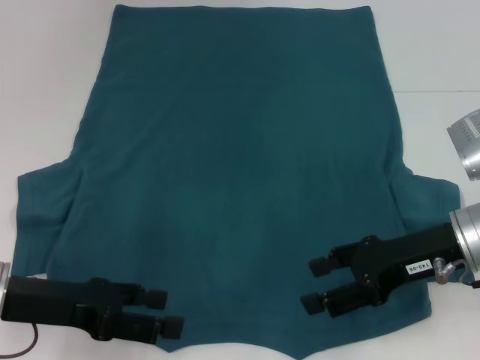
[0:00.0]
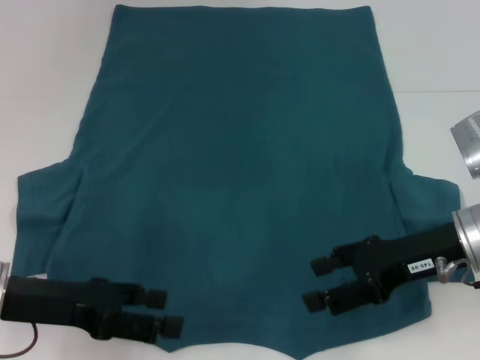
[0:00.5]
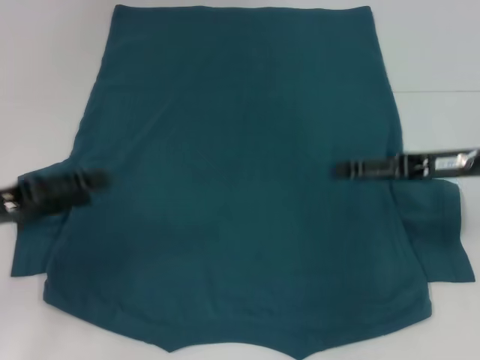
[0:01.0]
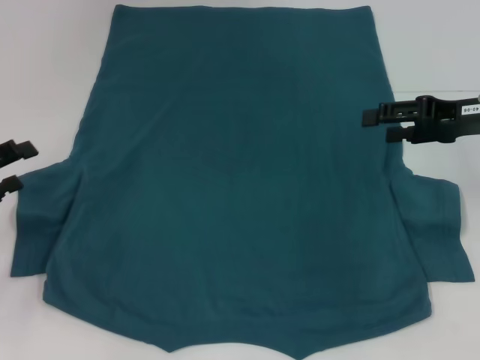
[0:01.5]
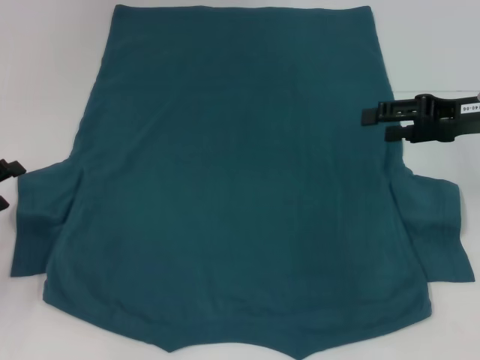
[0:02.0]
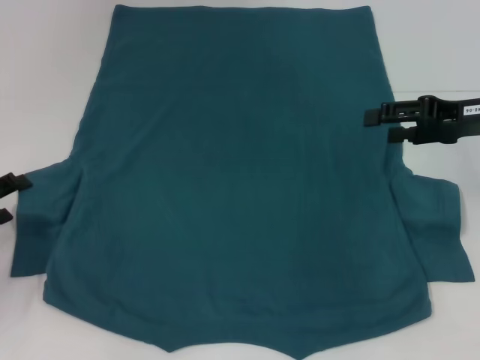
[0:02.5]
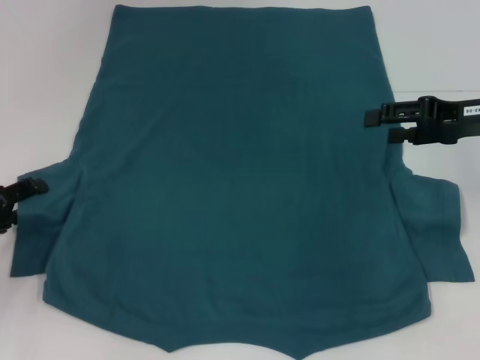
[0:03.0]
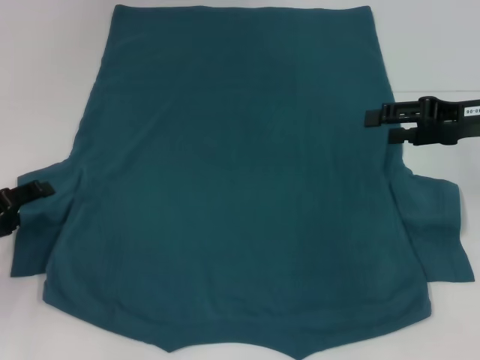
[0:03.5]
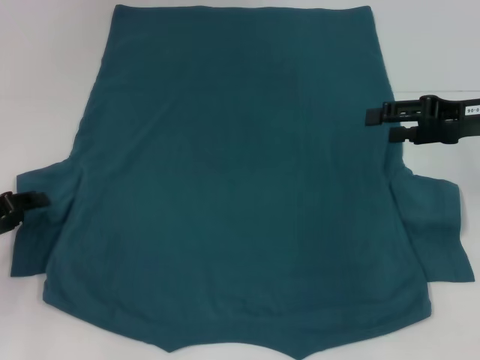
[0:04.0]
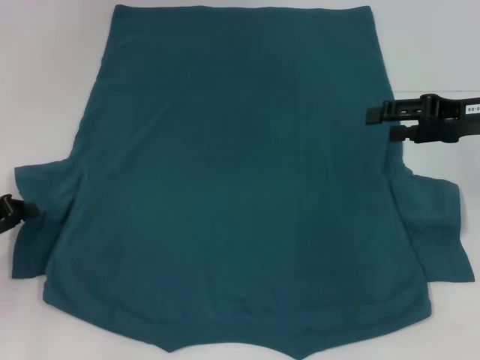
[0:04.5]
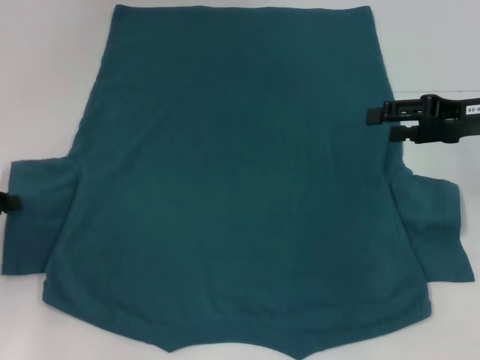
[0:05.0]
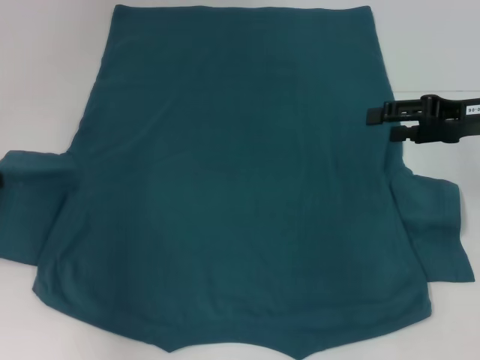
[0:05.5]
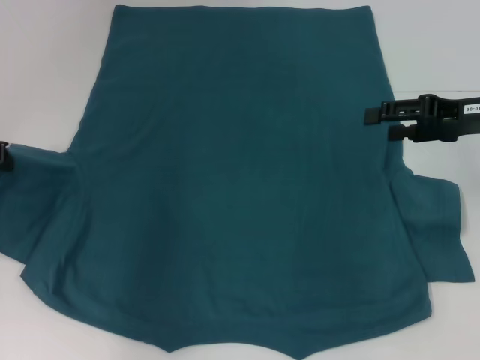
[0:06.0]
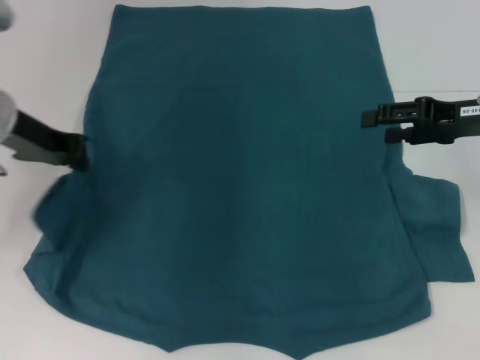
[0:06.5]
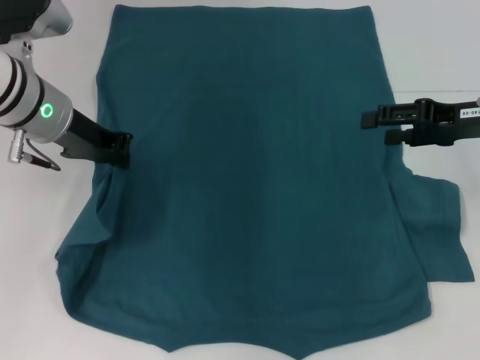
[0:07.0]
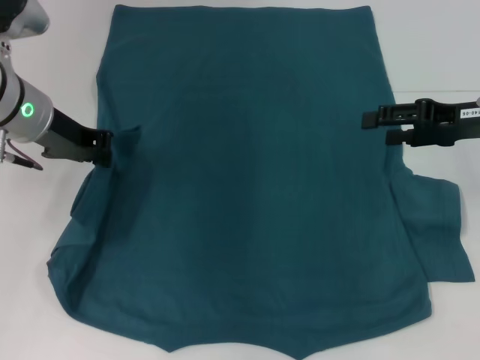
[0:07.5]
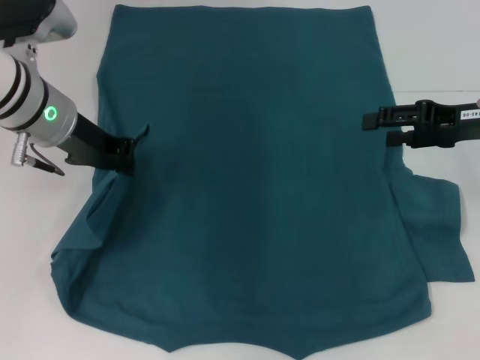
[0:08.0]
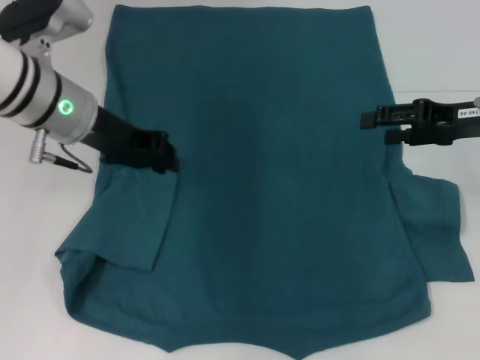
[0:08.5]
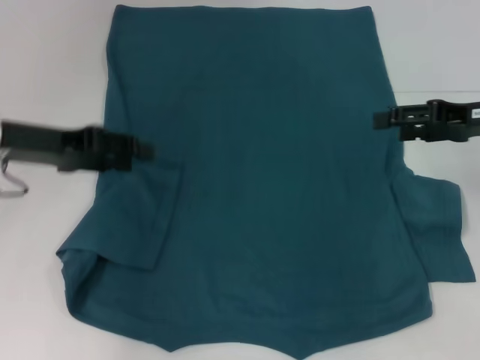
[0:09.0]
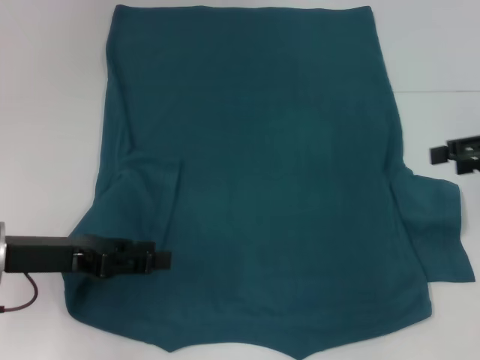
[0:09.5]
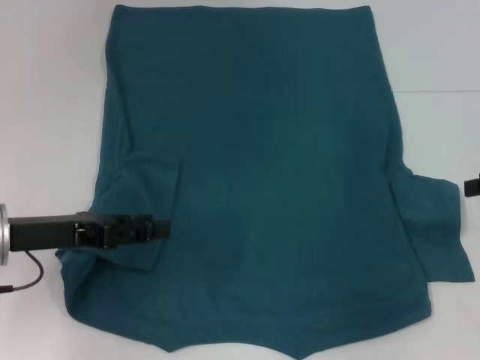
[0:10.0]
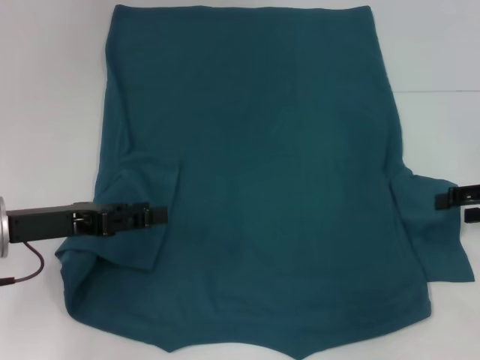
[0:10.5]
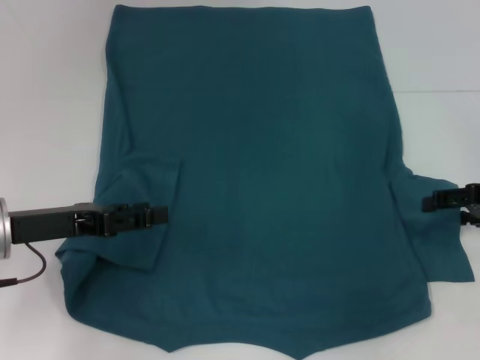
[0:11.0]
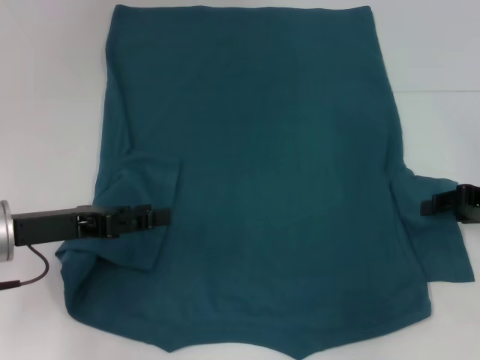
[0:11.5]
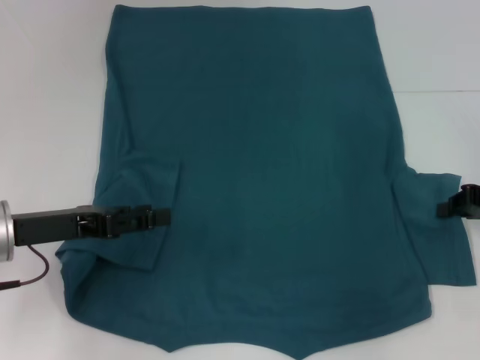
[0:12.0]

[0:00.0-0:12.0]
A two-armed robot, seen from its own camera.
Step, 0.0 to 9.0 s: Fold the bottom left sleeve with your left hand.
0.0 to 2.0 s: The right gripper moves forward and to the right, roughly 10 cm; the left gripper heads to the left, covering some 10 cm.
2.0 to 4.0 s: The grippers make only small movements.
4.0 to 6.0 s: The left gripper moves upward and forward, approximately 15 cm, and closes its fingers.
6.0 to 8.0 s: The left gripper goes approximately 15 cm to the right.
8.0 to 10.0 s: The right gripper is displaced to the right by about 10 cm, while the left gripper is displaced backward, downward and to the left by about 15 cm, and opens.
10.0 to 12.0 s: The right gripper shifts some 5 cm downward, and closes.

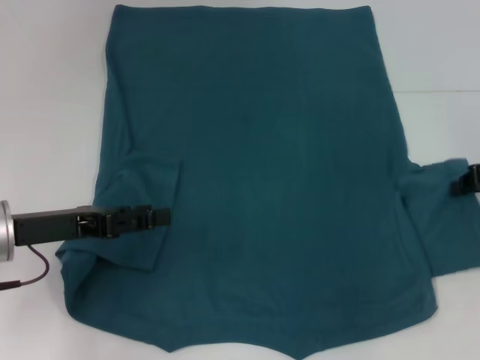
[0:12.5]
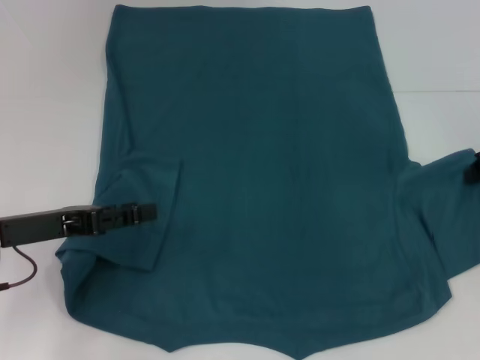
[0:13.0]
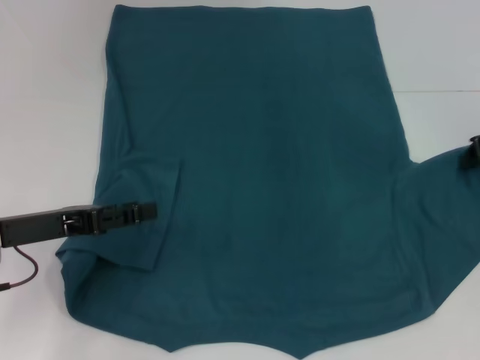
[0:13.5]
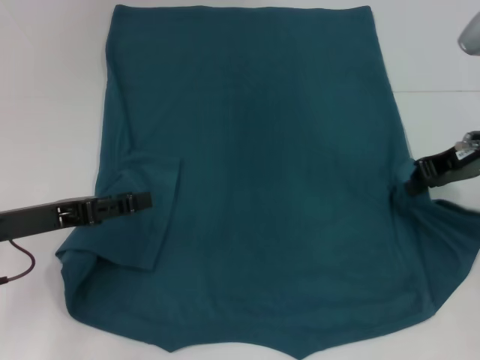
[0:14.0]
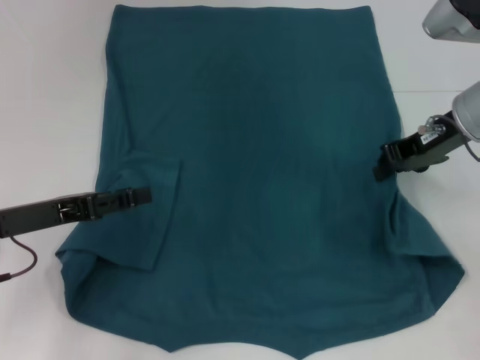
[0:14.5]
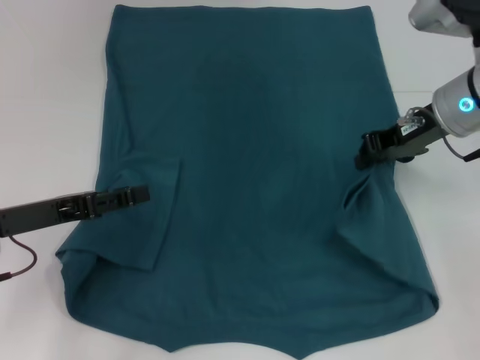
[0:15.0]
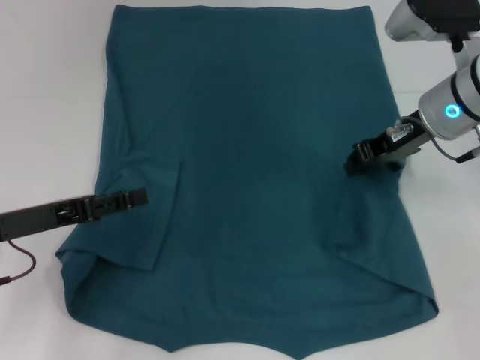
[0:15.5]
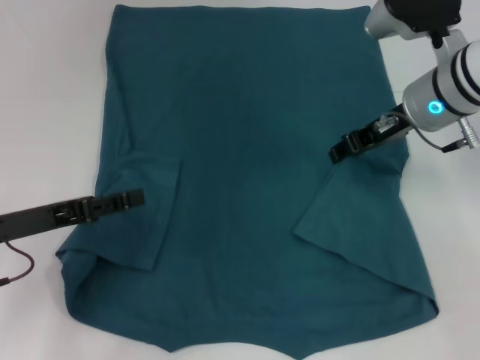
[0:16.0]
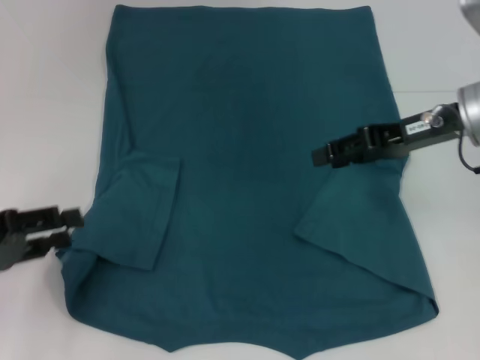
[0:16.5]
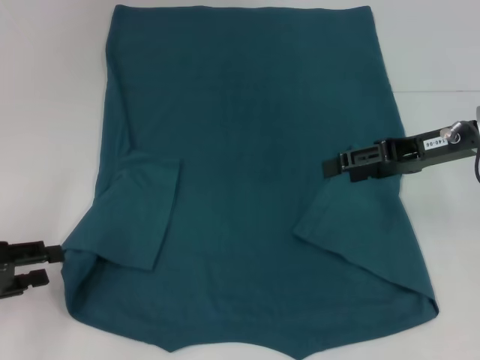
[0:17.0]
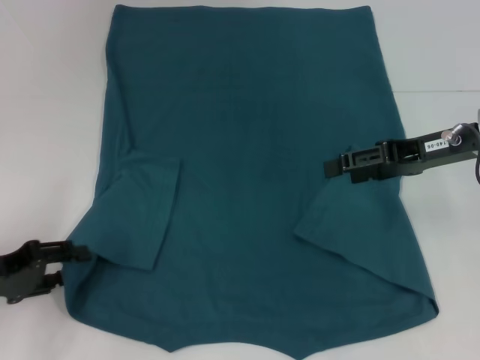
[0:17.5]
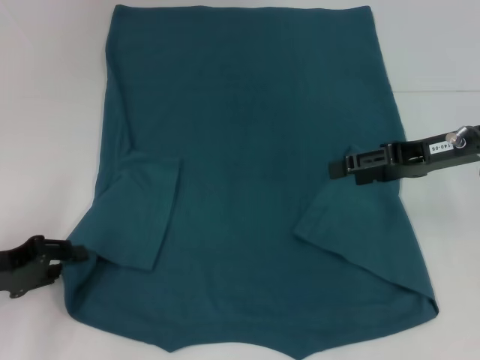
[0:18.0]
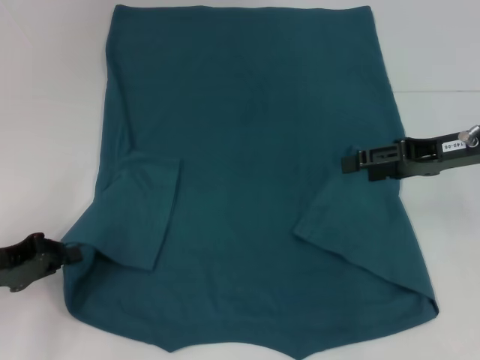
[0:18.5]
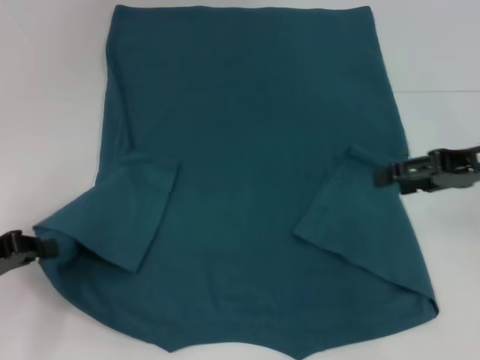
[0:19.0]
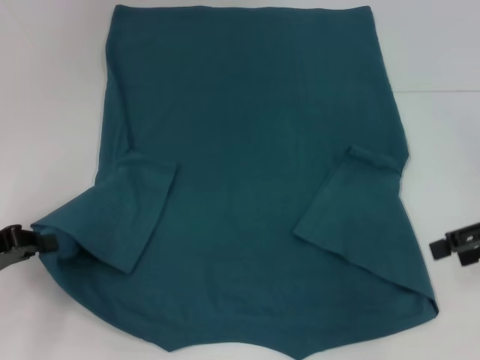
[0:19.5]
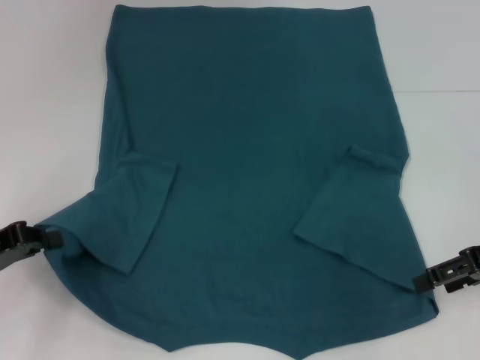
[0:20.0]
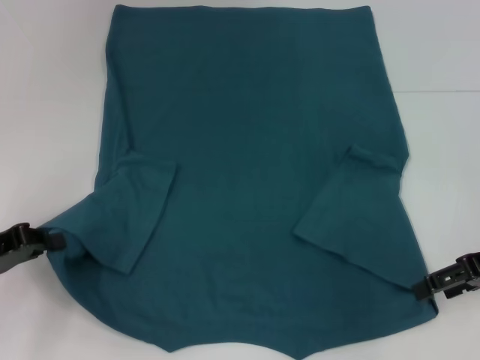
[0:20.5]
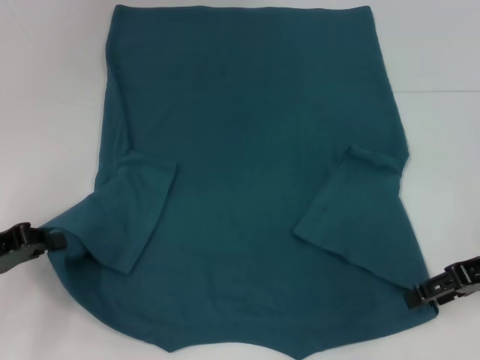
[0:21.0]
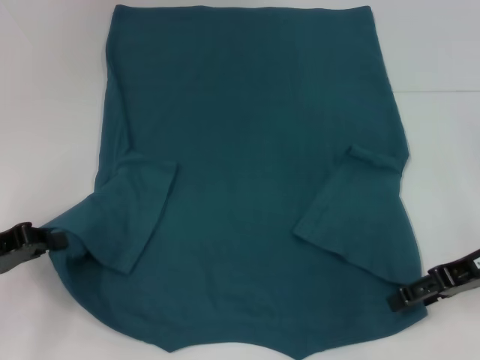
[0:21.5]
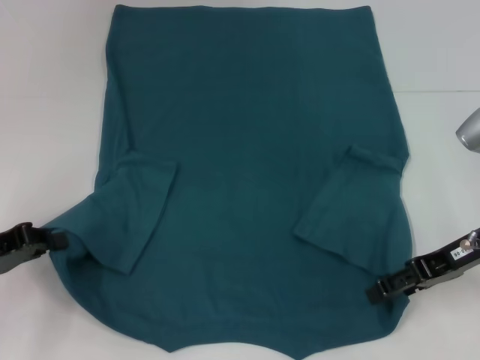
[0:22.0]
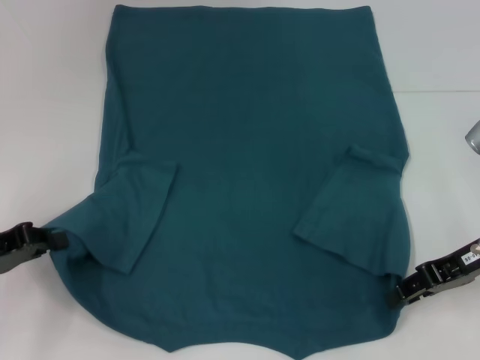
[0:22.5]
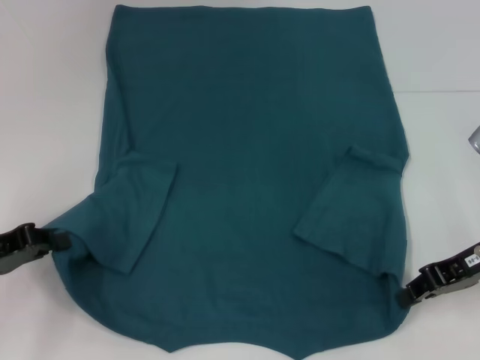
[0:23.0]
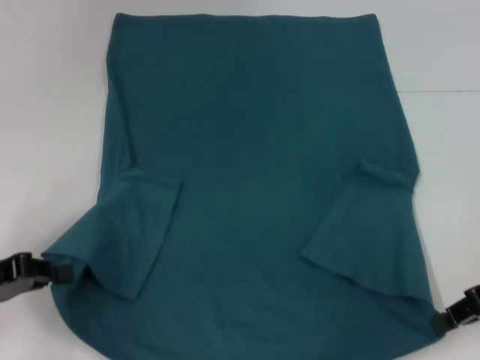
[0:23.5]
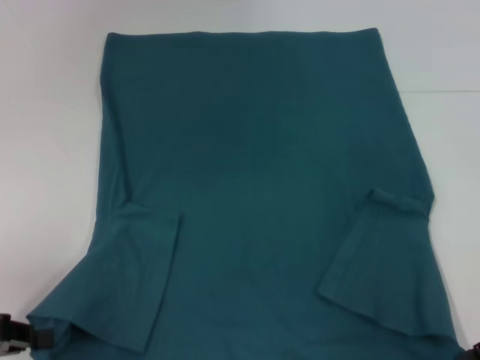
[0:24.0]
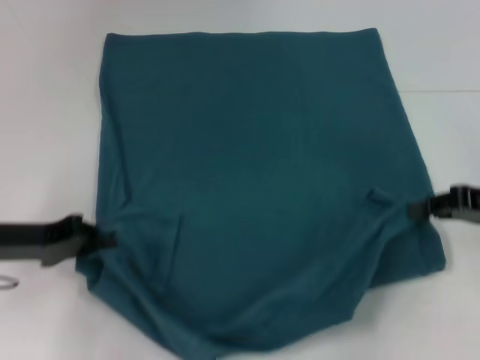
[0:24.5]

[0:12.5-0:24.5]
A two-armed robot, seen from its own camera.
Step, 12.5 to 16.5 s: Fold the bottom right sleeve to the right.
Step, 17.0 to 18.5 s: Grab the bottom left corner with your left hand.
Step, 19.0 to 23.0 s: Grab the bottom right corner with your right hand.
12.5 to 14.5 s: The right gripper heads to the left, covering roughly 10 cm.
14.5 to 16.5 s: The left gripper moves to the left, roughly 5 cm, while the right gripper opens.
16.5 to 18.5 s: The left gripper closes up. Meanwhile the right gripper opens.
18.5 to 20.5 s: The right gripper moves backward, about 5 cm.
20.5 to 22.5 s: There are only small adjustments of the grippers.
22.5 to 24.5 s: The right gripper goes approximately 5 cm to the right, and closes its fingers; the left gripper goes backward and returns, approximately 5 cm each way.

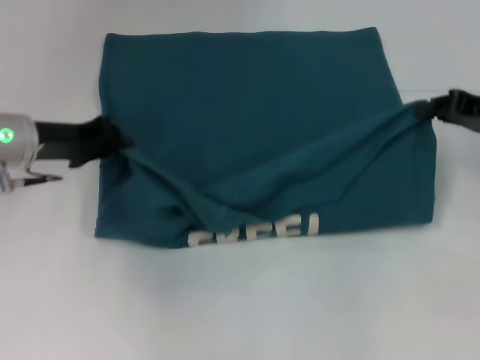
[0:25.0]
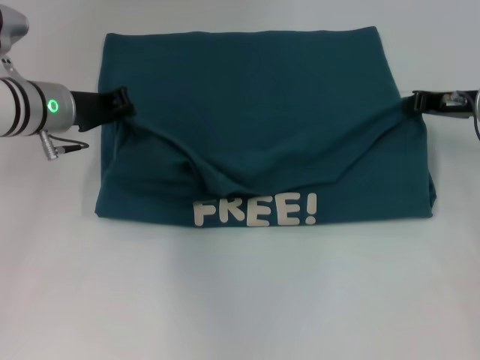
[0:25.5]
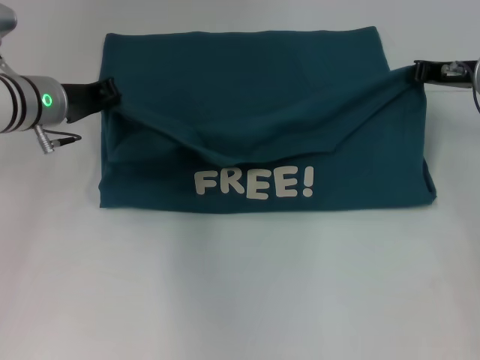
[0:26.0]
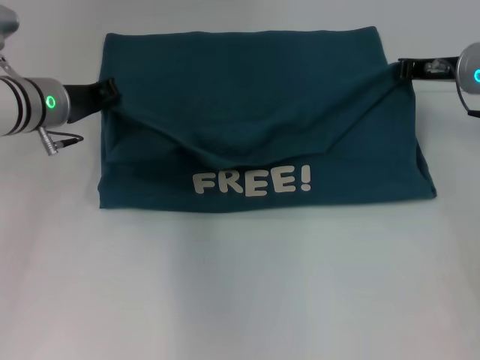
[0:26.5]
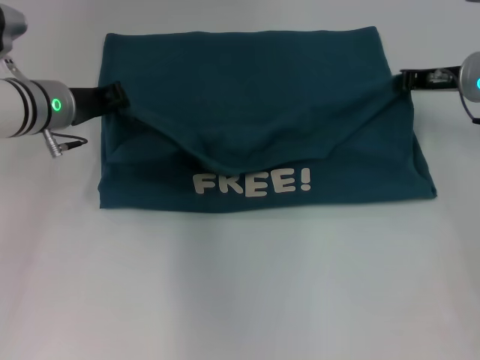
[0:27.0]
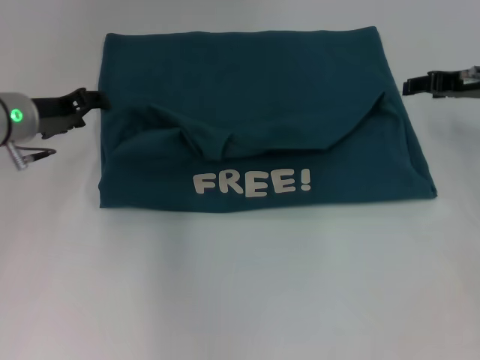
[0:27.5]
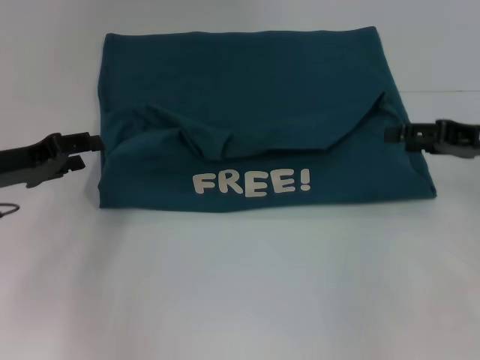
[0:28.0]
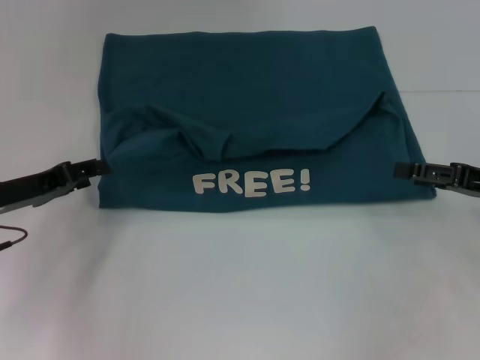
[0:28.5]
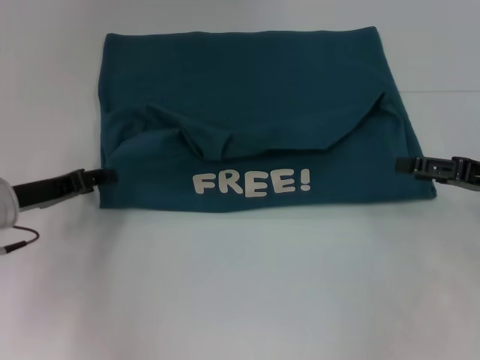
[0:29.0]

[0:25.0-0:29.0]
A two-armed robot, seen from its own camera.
Step, 25.0 to 27.5 s: Fold the clothes to the left.
Step, 25.0 to 27.5 s: Fold the clothes to the right.
25.0 to 27.0 s: The left gripper shifts by roughly 5 cm. Meanwhile the right gripper goes approximately 10 cm forward and to the left.
27.0 to 29.0 s: The left gripper moves backward, to the left and downward, roughly 15 cm, and opens up, while the right gripper goes about 15 cm backward and to the right, and opens up.
